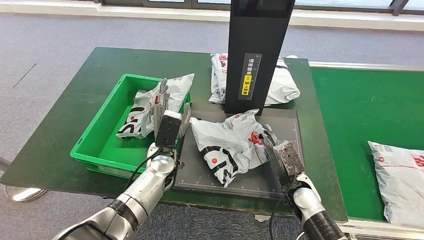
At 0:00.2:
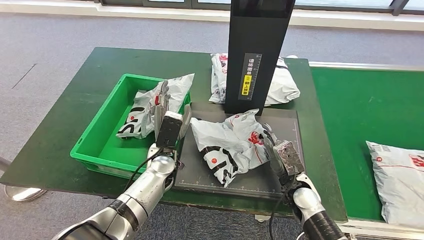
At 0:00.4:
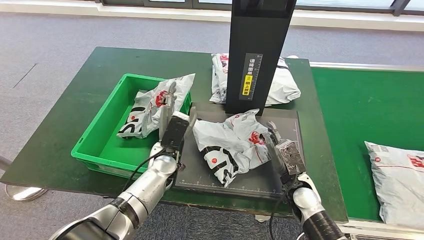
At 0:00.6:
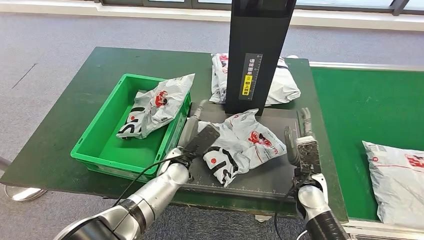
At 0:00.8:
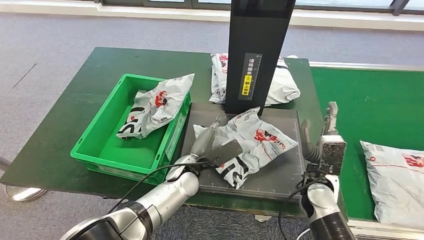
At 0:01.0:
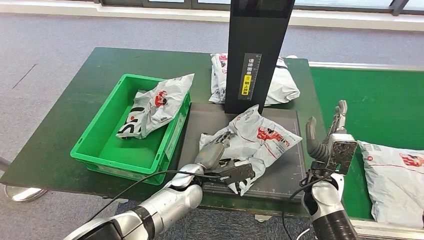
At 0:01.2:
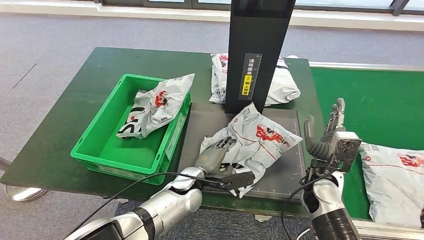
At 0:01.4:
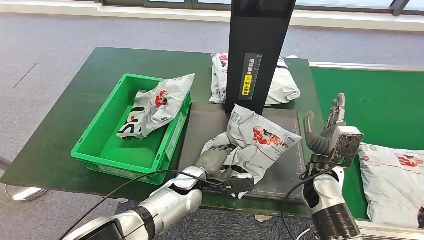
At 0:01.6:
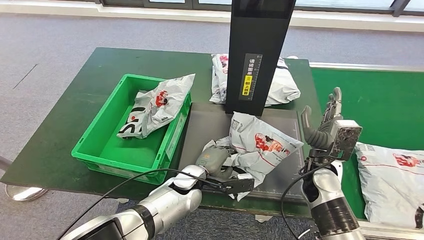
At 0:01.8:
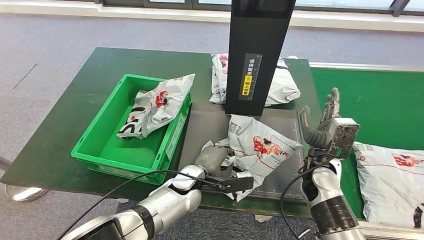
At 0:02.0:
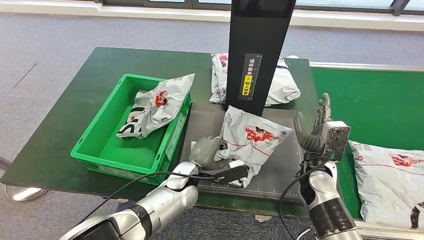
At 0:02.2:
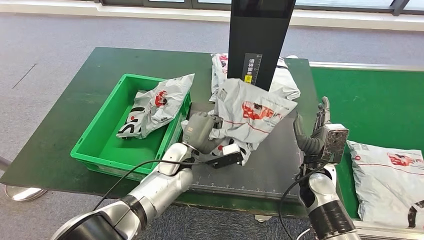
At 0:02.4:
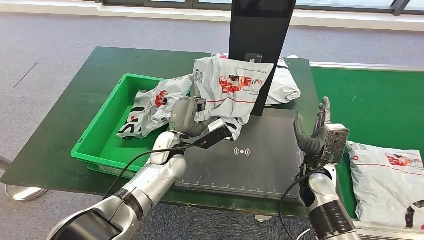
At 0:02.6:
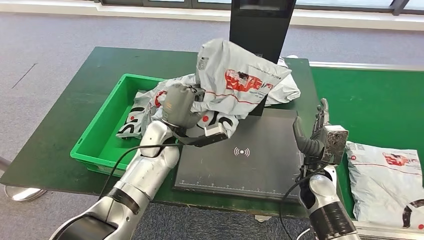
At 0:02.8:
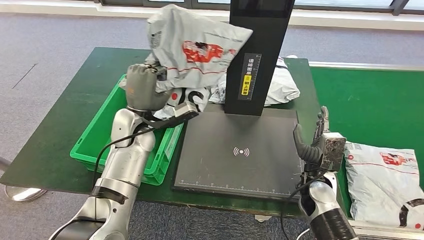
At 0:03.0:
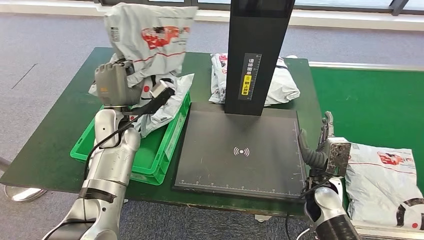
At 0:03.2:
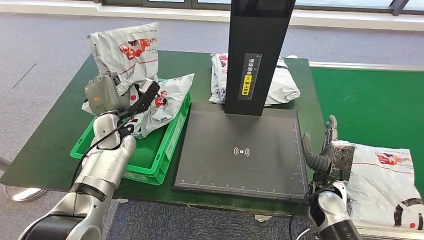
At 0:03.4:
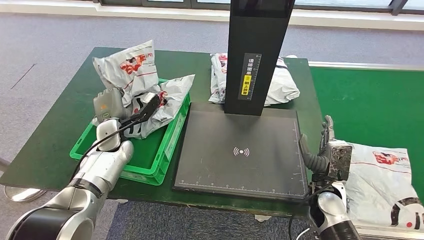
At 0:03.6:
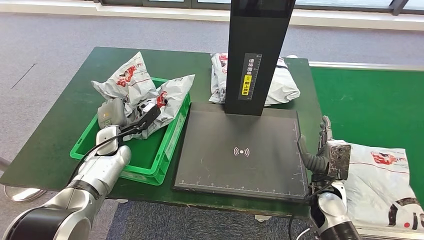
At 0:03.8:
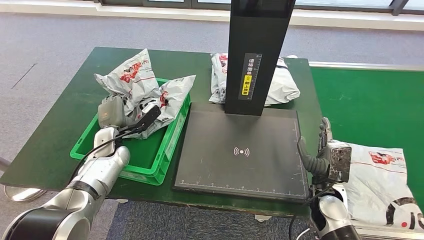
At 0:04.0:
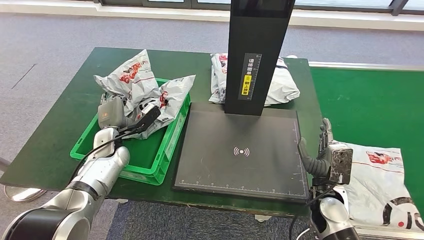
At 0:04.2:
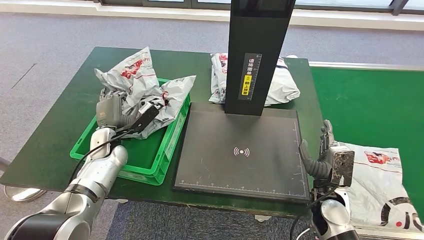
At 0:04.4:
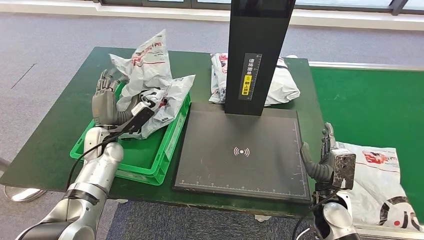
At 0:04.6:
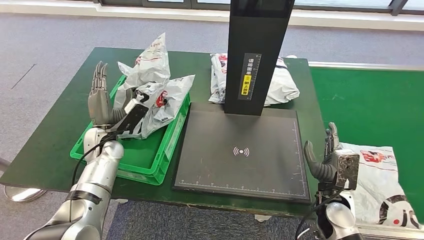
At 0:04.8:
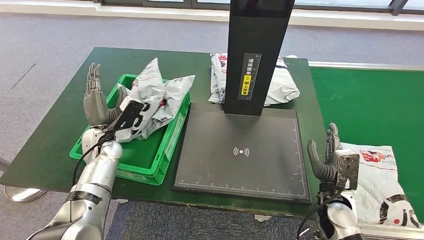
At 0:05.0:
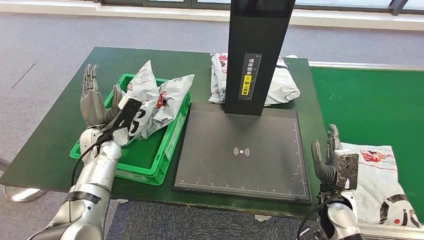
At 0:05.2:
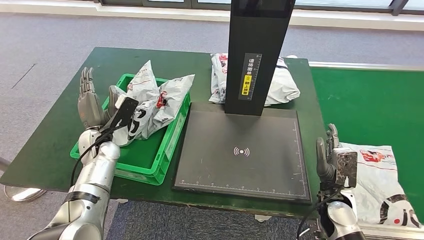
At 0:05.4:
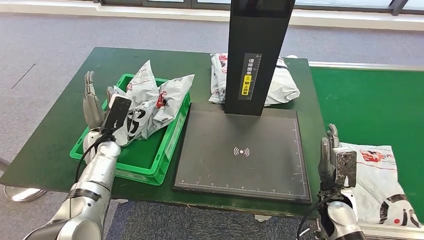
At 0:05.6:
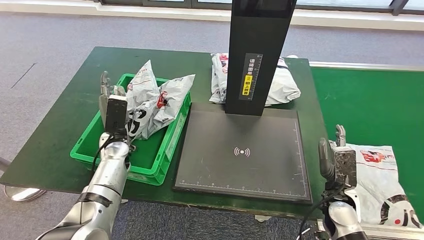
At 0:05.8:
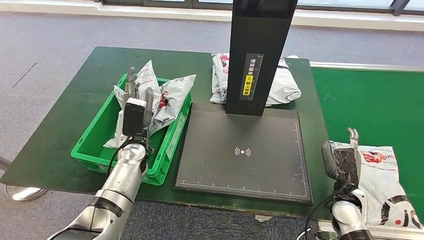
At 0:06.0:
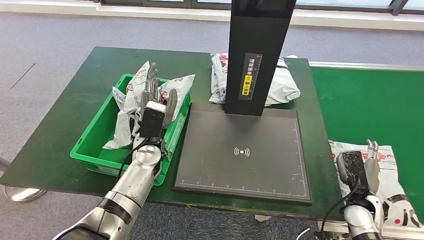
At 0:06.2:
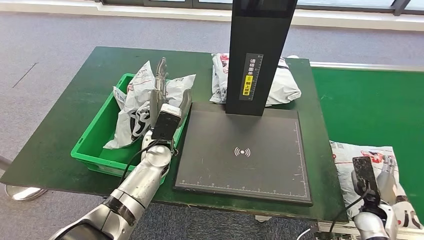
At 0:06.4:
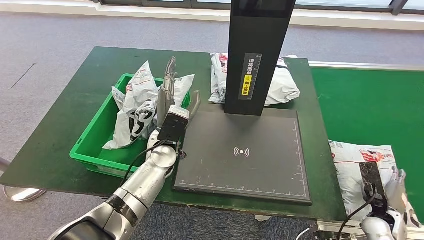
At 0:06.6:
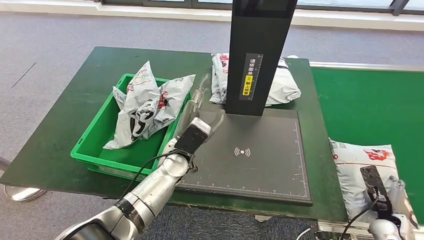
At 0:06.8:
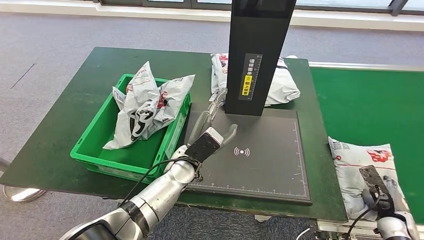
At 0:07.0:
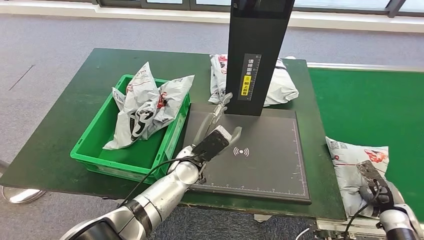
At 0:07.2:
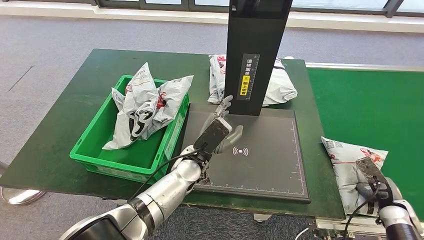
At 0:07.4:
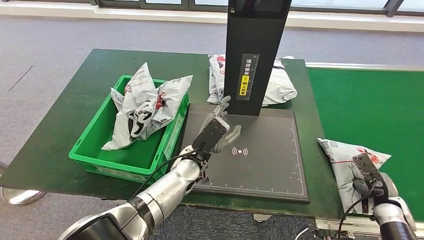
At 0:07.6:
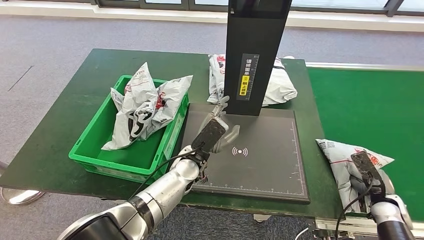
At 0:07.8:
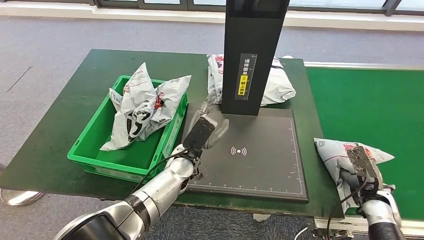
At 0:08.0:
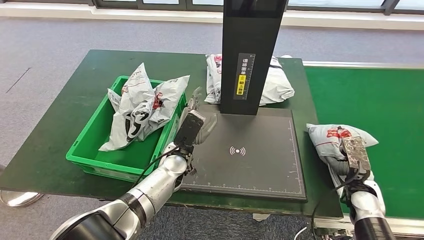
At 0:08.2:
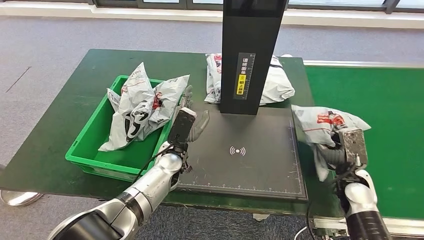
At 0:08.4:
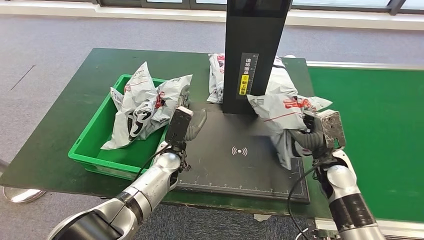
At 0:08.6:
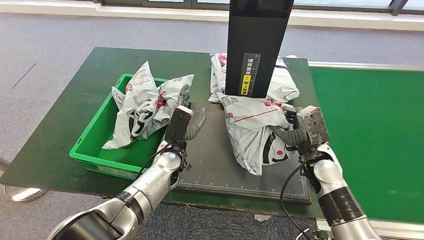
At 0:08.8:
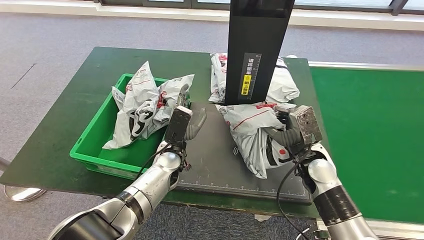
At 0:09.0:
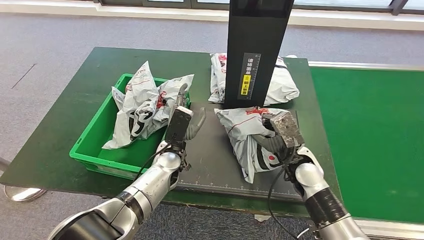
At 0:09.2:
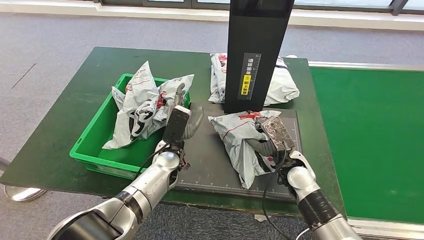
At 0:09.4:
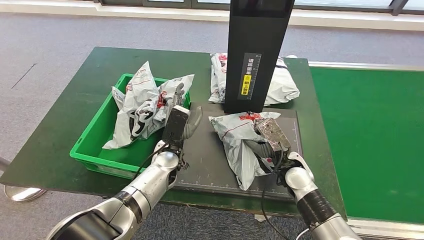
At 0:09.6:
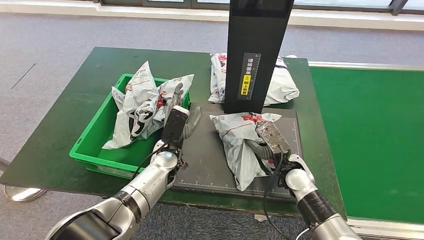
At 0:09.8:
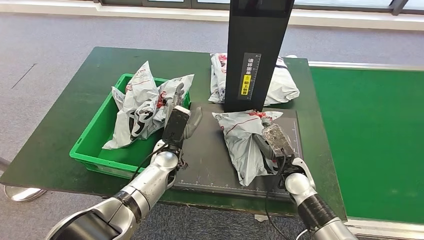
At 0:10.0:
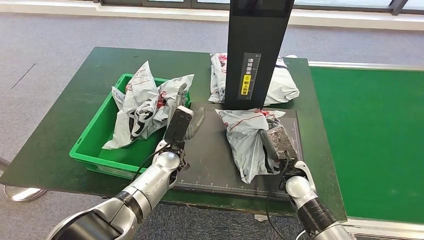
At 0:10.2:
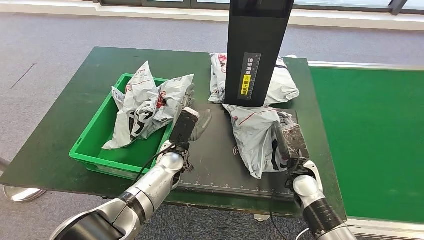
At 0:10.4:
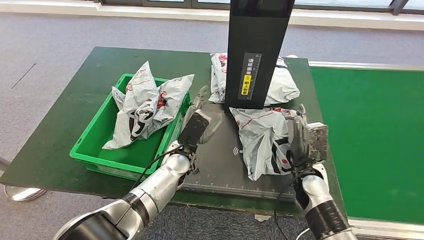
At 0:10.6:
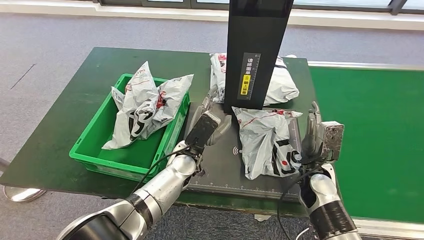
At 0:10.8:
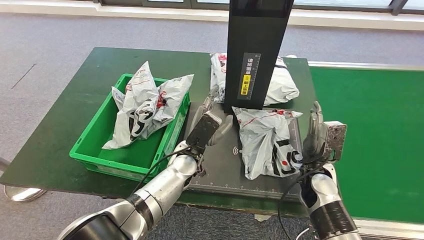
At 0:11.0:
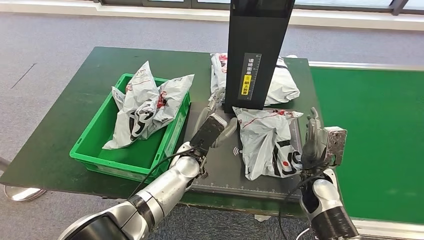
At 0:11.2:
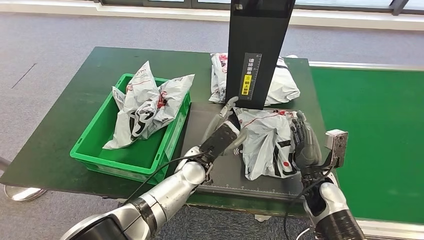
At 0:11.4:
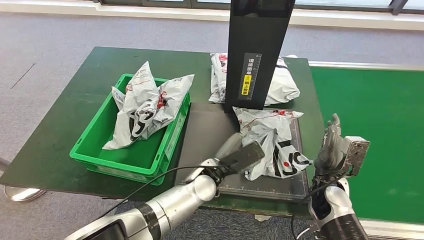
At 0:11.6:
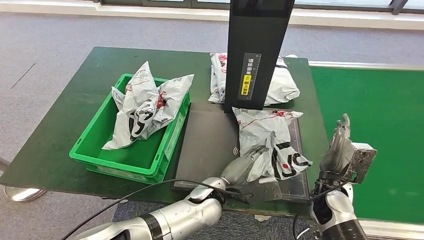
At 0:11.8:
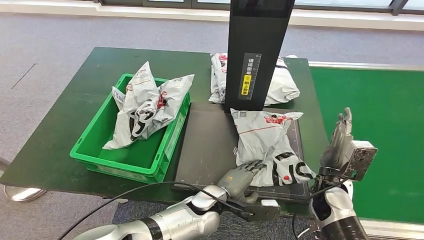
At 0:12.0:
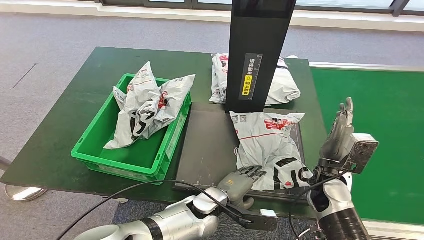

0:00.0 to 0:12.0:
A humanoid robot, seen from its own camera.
Step, 0:00.4 to 0:02.6: Pick up the parcel from the inbound machine.
Step, 0:02.8 to 0:05.6: Place the parcel into the delivery box.
Step, 0:05.8 to 0:08.4: Pick up the parcel from the conveyor belt.
Step, 0:08.6 to 0:11.6: Place the parcel onto the inbound machine.
0:03.0 to 0:04.4: The left hand moves downward and to the left, some 10 cm.
0:04.4 to 0:06.0: The two hands go roughly 10 cm to the right.

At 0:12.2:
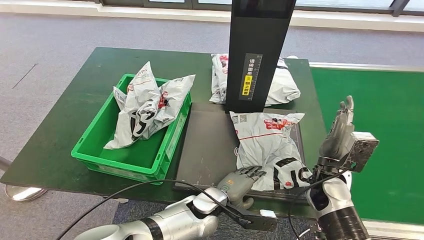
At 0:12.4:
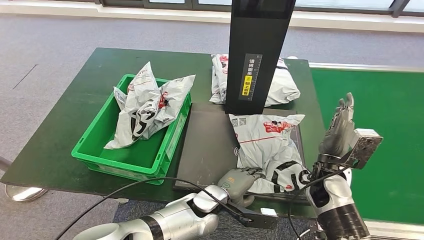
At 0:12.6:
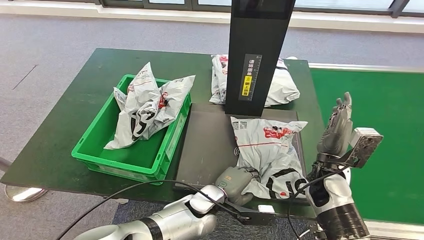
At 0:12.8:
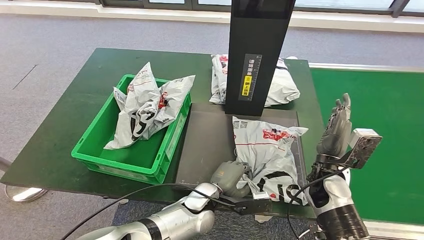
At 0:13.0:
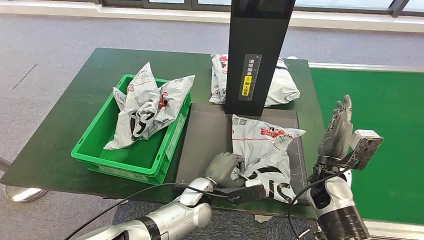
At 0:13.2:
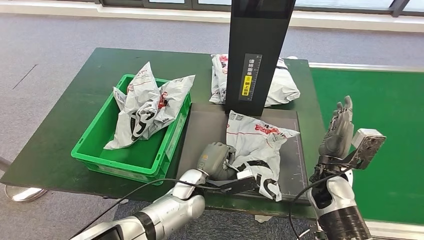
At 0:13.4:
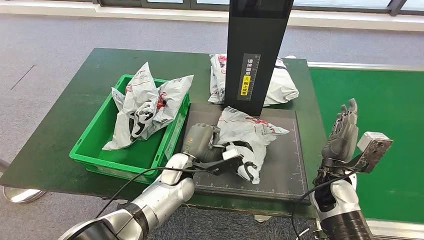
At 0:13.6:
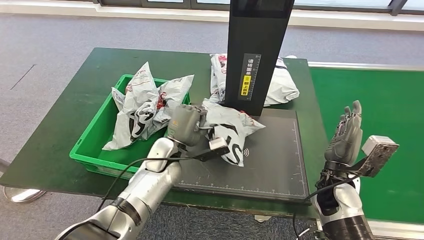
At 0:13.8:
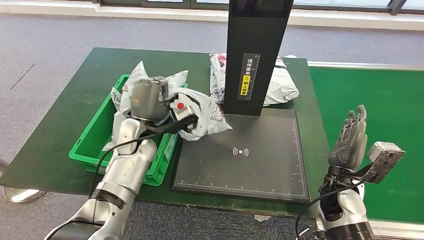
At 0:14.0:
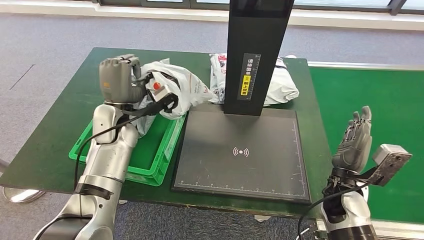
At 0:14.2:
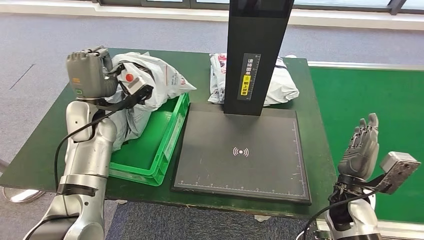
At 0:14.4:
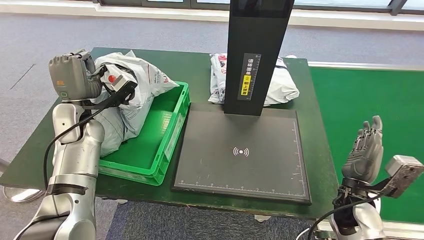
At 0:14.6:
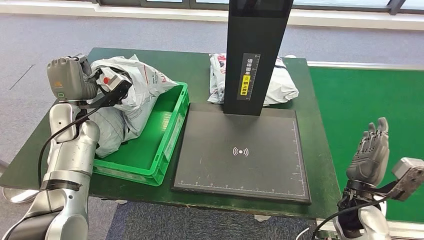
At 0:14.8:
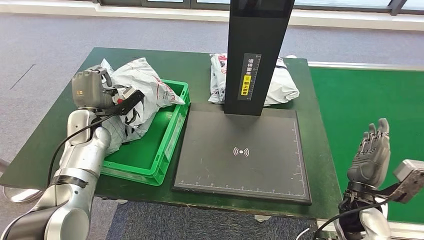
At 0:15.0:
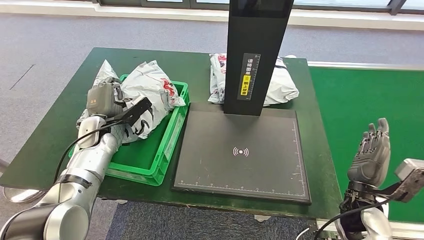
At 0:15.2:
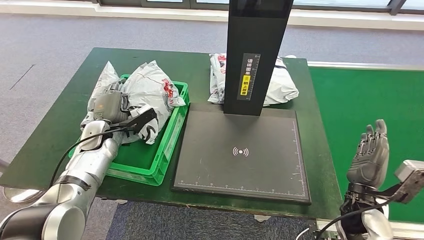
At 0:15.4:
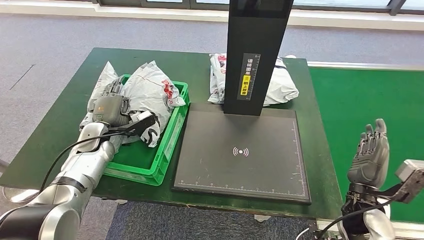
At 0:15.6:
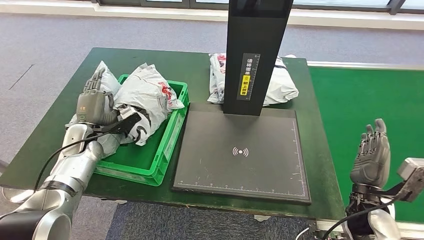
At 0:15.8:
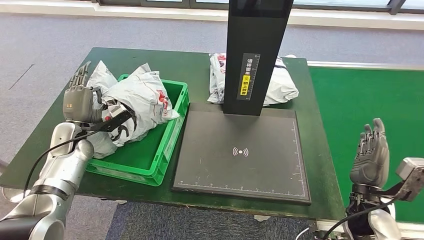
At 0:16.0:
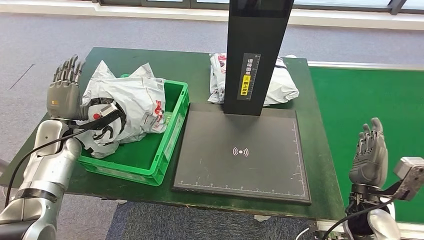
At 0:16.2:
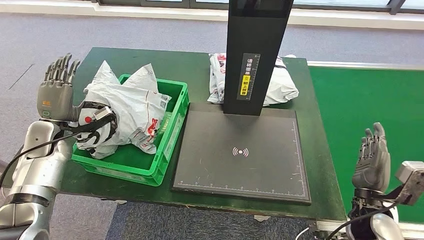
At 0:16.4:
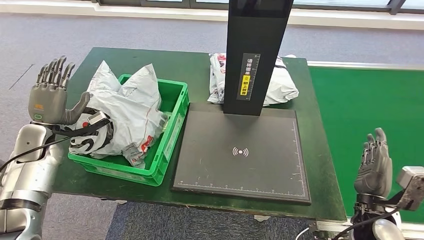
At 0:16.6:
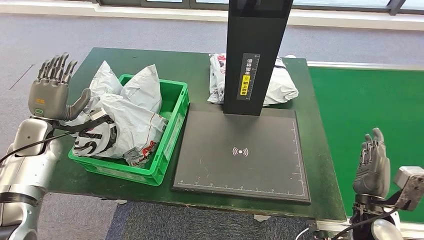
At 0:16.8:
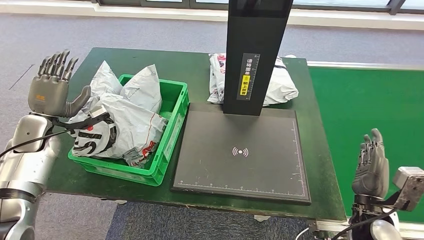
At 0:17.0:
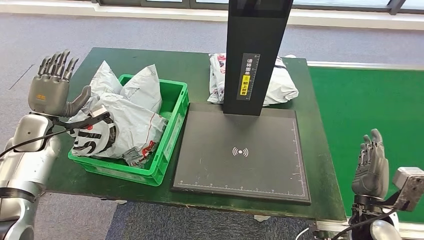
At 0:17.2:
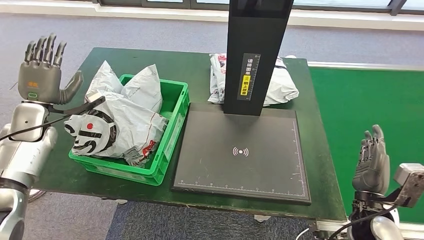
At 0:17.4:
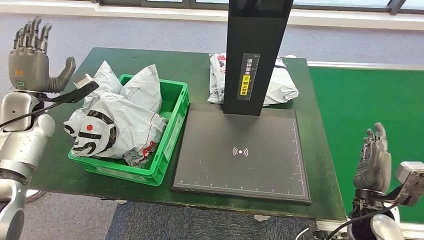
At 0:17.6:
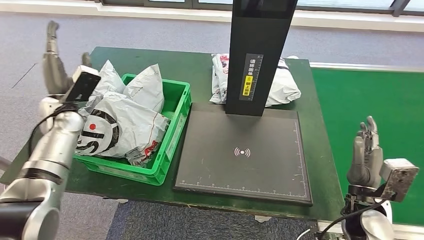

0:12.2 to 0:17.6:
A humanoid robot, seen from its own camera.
Step, 0:12.2 to 0:14.2: Pick up the parcel from the inbound machine.
Step, 0:14.4 to 0:17.6: Place the parcel into the delivery box.
